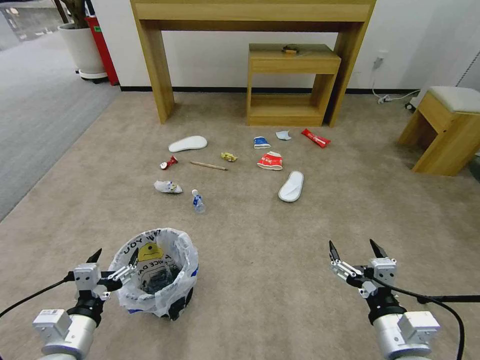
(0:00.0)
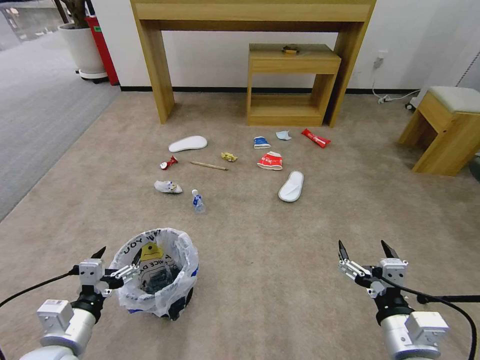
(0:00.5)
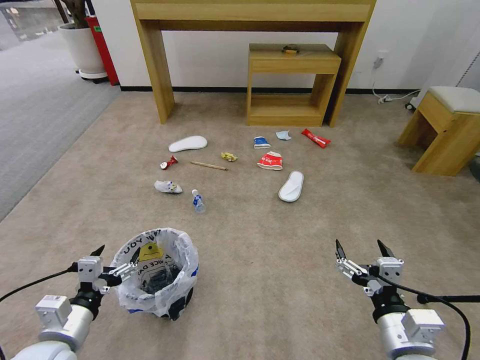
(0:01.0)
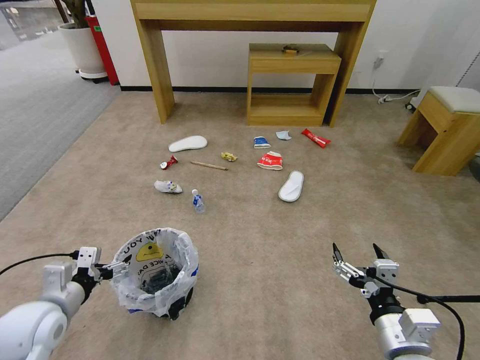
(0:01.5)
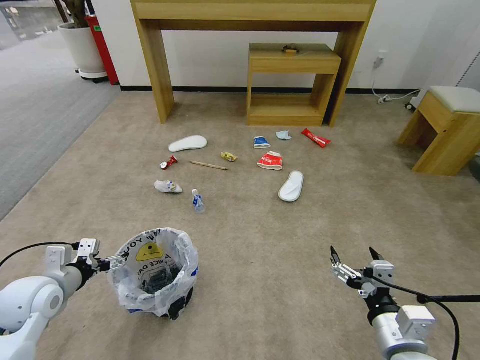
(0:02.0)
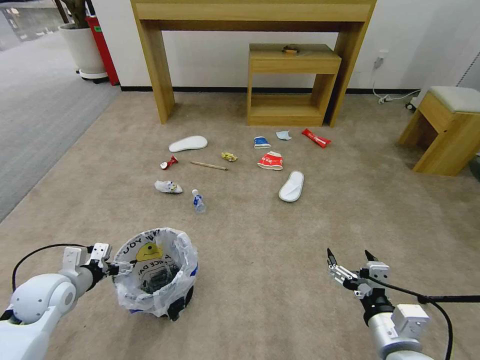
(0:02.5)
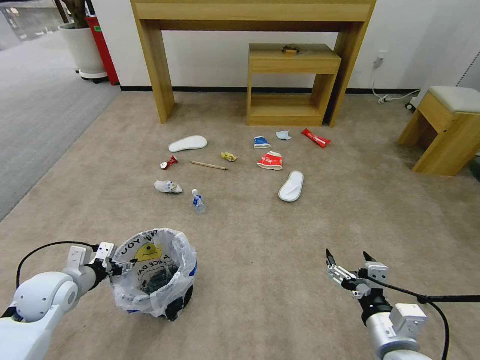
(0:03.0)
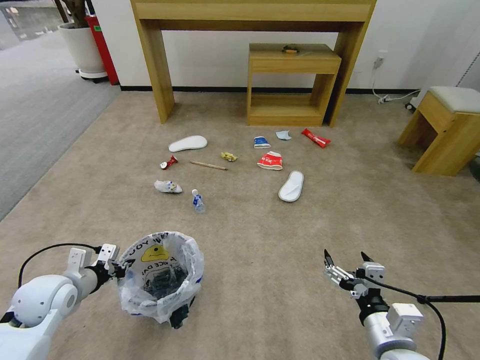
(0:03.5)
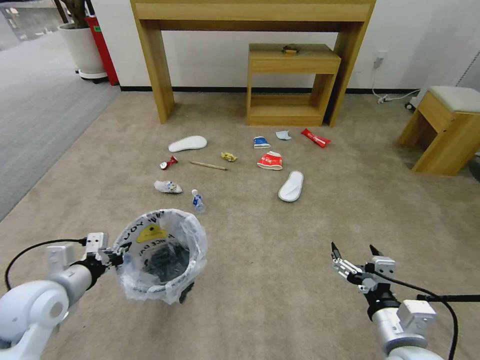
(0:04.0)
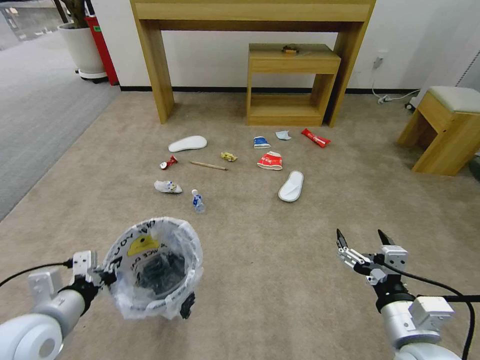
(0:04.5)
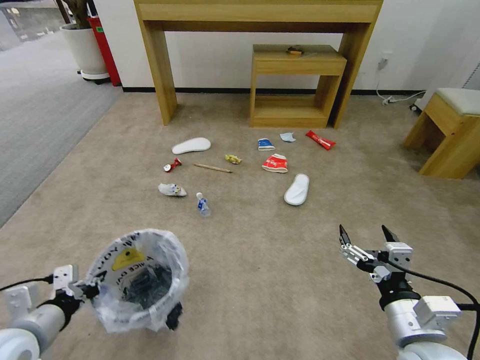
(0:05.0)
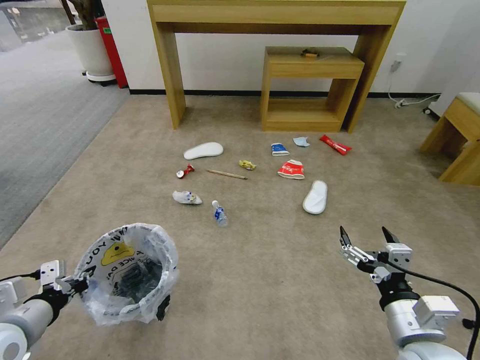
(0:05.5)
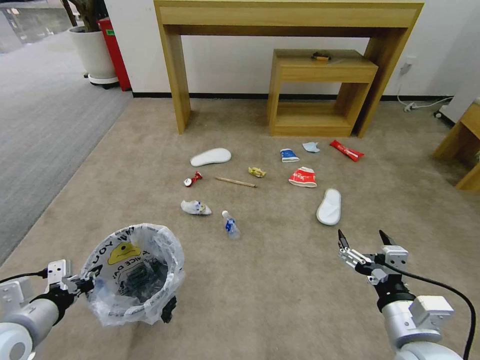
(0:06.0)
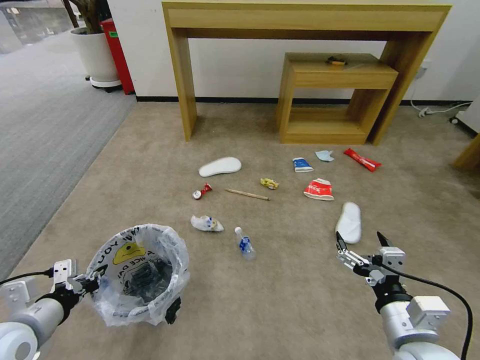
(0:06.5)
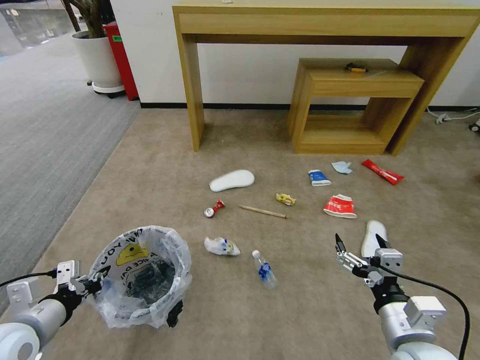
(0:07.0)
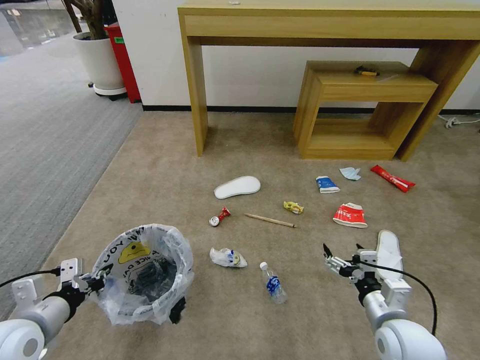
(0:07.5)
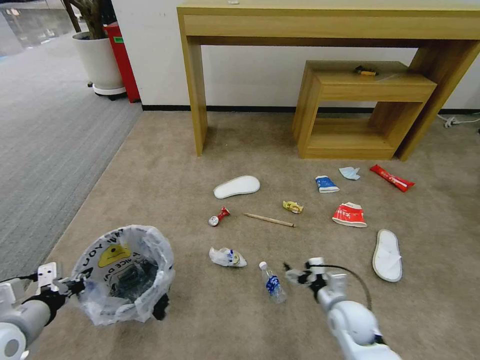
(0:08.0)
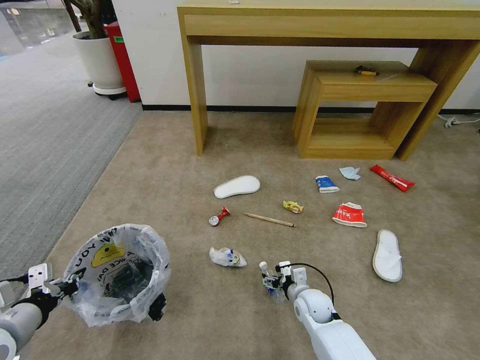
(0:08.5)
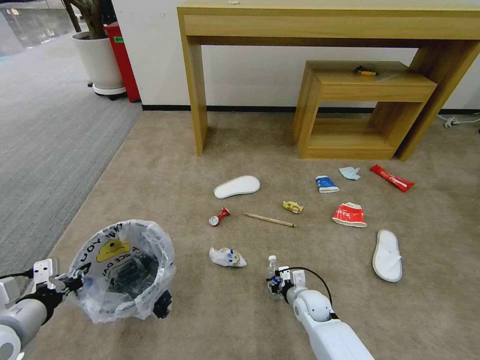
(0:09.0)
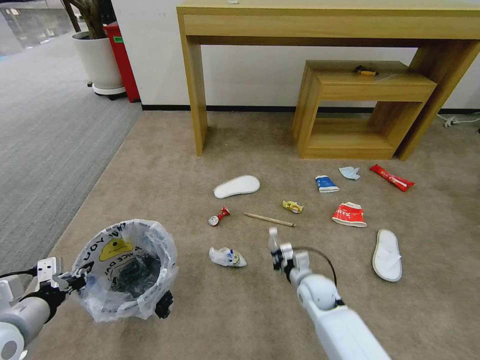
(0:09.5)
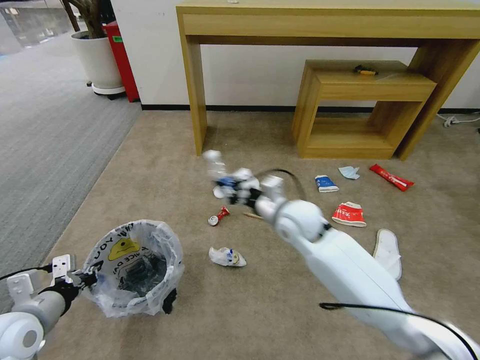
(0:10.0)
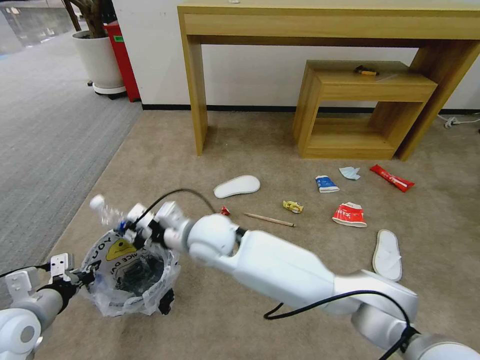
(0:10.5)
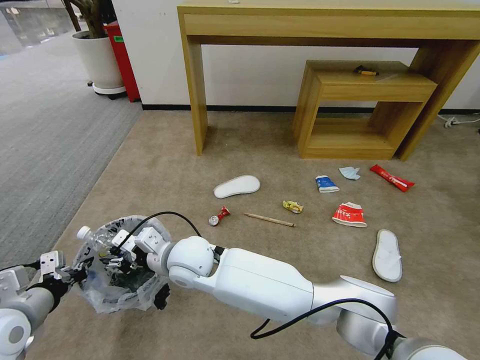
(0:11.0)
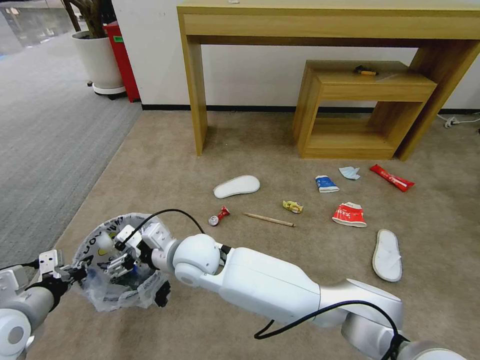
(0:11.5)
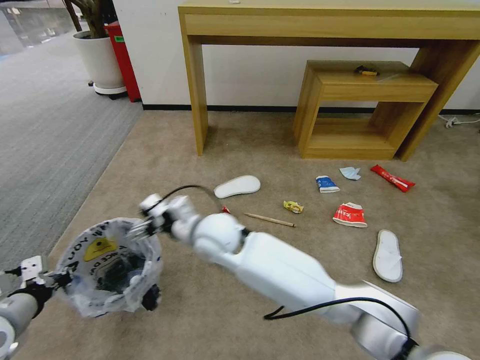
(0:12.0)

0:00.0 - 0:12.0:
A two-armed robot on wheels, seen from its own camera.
Task of the whole recording: Pick up the trash bin and place the garbage on the floor into it.
0:02.0 - 0:04.0: The left gripper moves some 5 cm, and closes up.
0:04.0 - 0:06.0: The left gripper heads backward, covering some 5 cm.
0:06.0 - 0:08.0: The right gripper heads downward and forward, covering about 20 cm.
0:08.0 - 0:10.0: The right gripper is displaced upward, forward and to the left by some 30 cm, and closes up.
0:10.0 - 0:12.0: The right gripper heads to the left, covering some 15 cm, and opens.

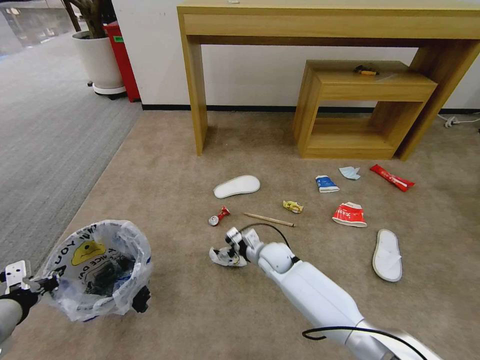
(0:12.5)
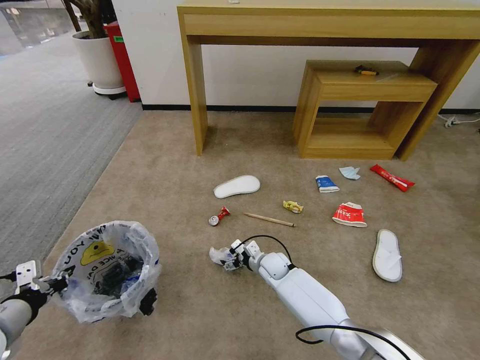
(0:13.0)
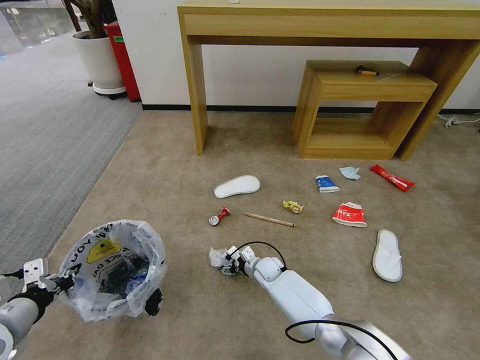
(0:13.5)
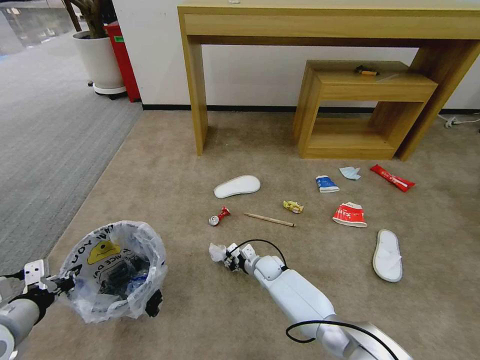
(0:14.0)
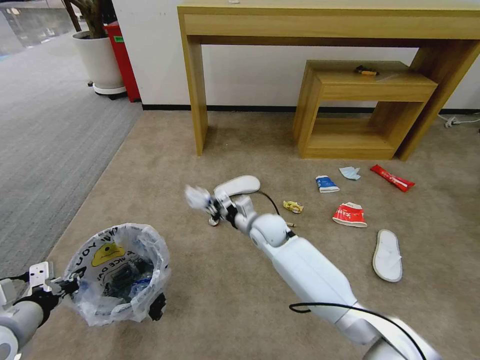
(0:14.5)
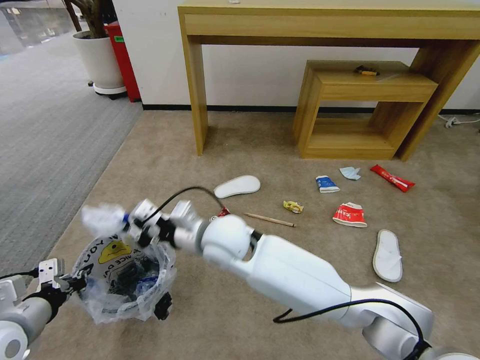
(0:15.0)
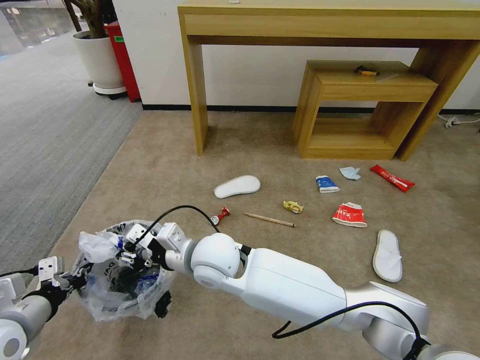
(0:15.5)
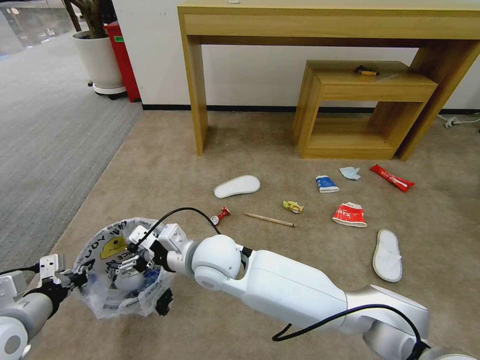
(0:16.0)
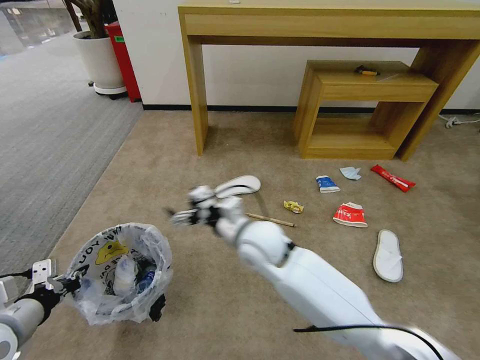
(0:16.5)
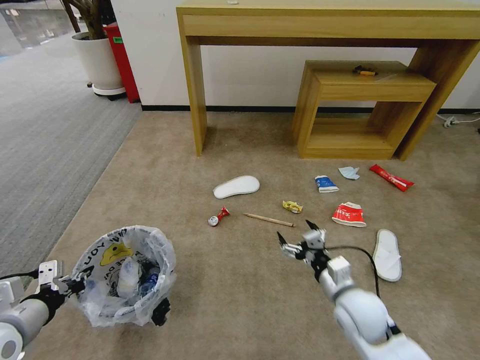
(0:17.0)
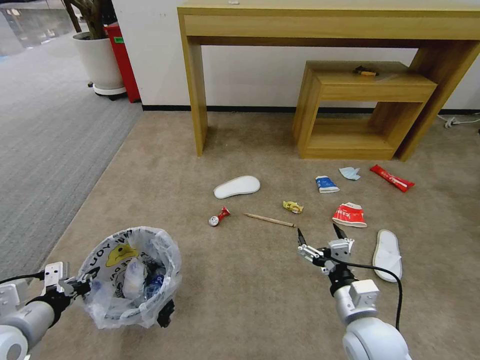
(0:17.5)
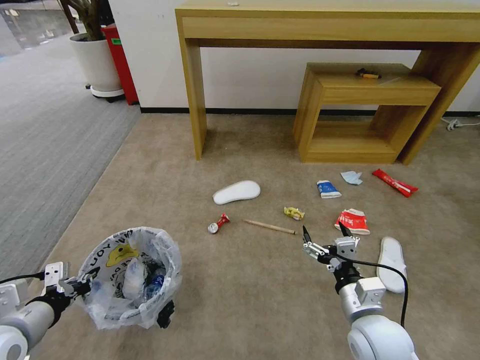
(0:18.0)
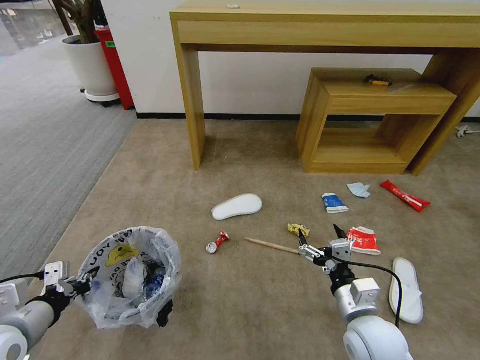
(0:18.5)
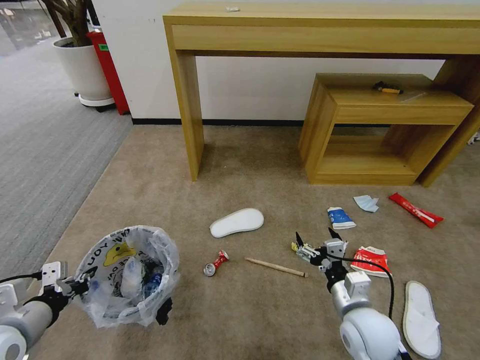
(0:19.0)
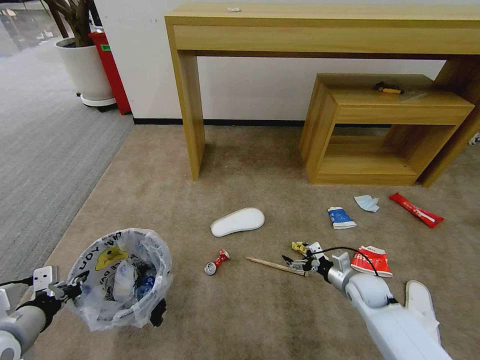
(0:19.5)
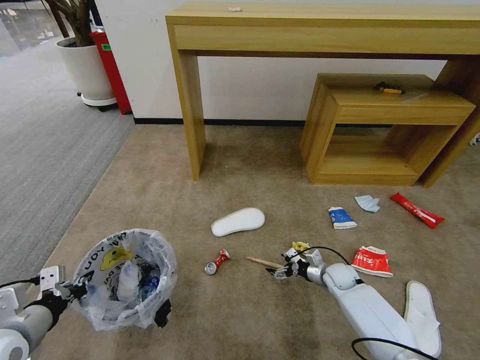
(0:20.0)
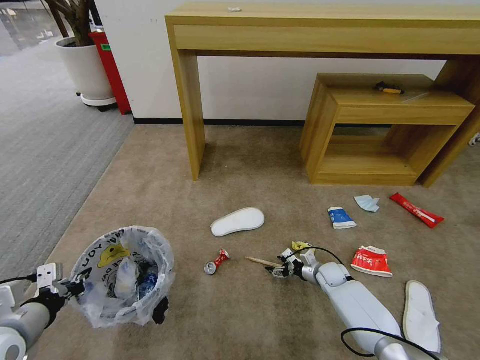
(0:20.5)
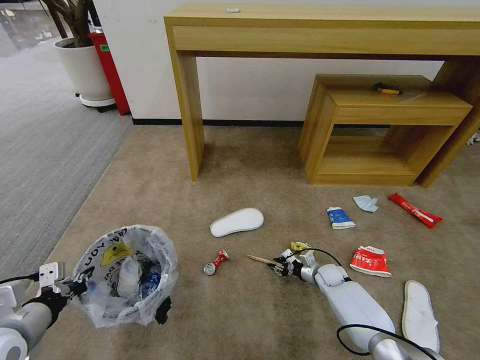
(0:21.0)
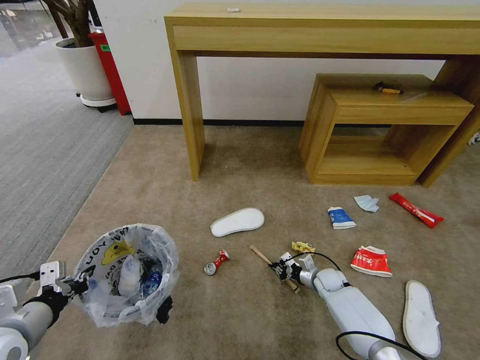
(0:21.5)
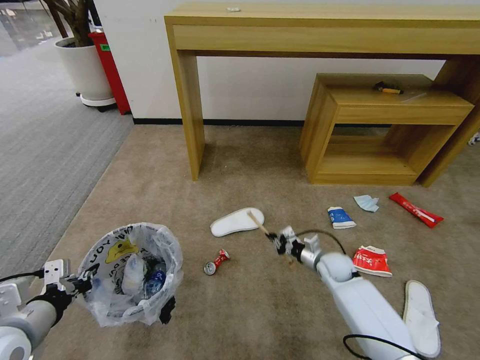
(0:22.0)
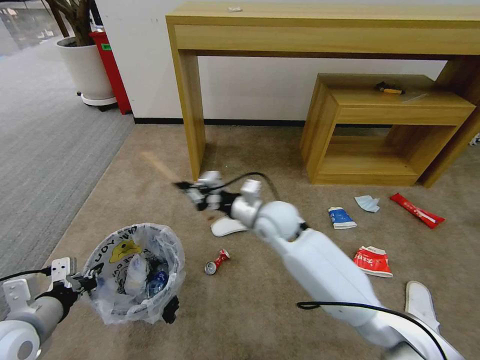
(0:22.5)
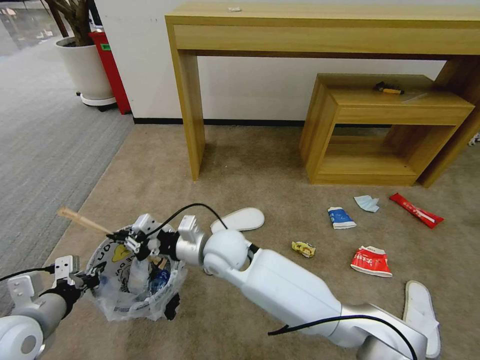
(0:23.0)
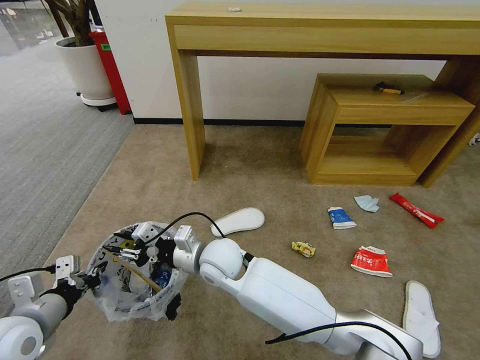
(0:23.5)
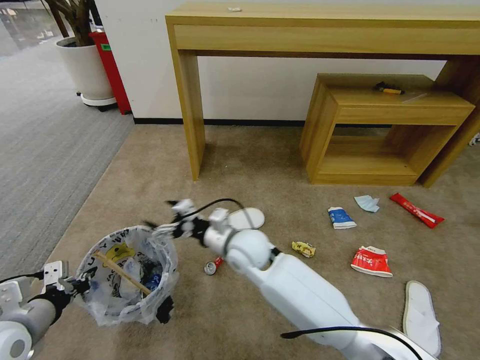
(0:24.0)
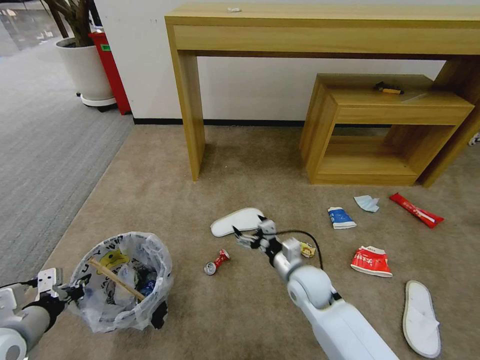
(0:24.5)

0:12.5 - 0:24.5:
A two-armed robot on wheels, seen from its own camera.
Task of the whole recording: Pick up the trash bin and place the garbage on the floor into it.
0:12.5 - 0:14.5: The right gripper goes roughly 10 cm upward, and closes its fingers.
0:14.5 - 0:16.5: The right gripper moves backward and upward, roughly 15 cm, and opens.
0:16.5 - 0:18.5: The right gripper moves to the right, backward and downward, about 30 cm.
0:18.5 - 0:20.5: The right gripper heads forward and downward, covering roughly 30 cm.
0:20.5 - 0:22.5: The right gripper goes approximately 35 cm upward and to the left, and closes.
0:22.5 - 0:24.5: The right gripper goes some 15 cm downward and backward, reaches roughly 15 cm to the left, then returns, and opens up.

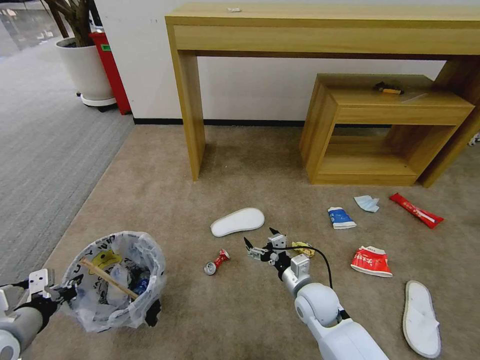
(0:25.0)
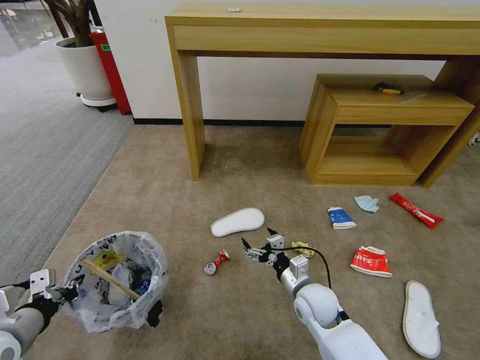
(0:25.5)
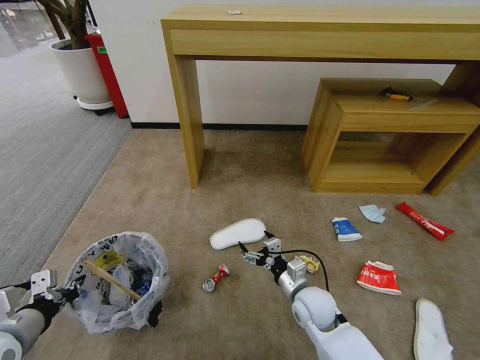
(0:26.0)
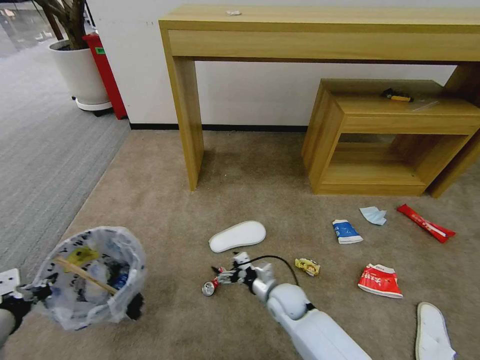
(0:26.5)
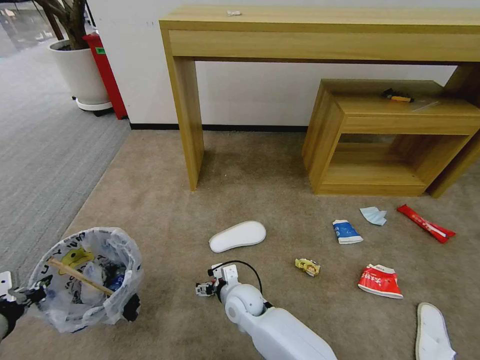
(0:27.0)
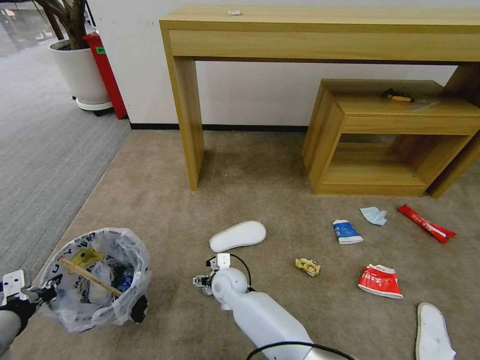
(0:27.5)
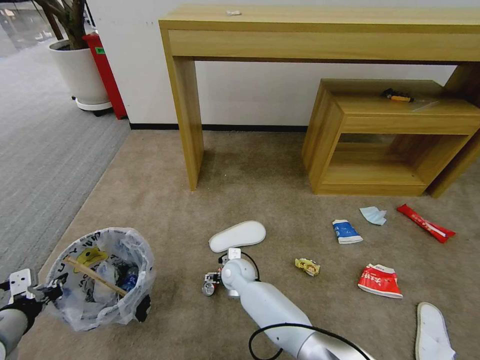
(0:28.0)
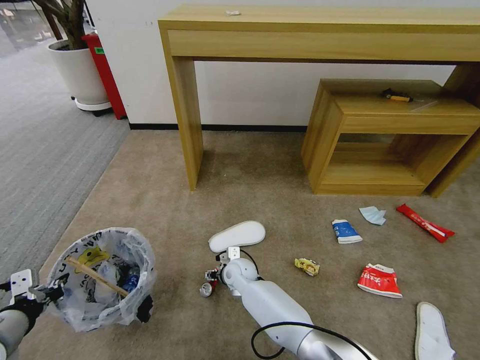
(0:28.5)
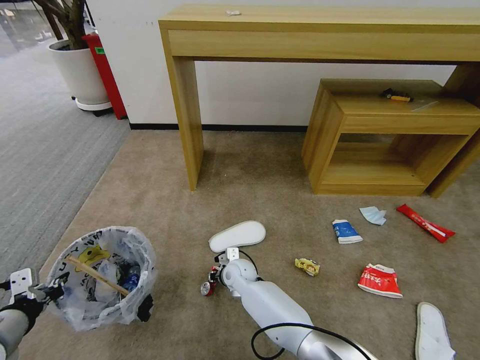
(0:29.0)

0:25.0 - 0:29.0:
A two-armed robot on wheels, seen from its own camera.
Task of the whole recording: Pick up the trash bin and place the garbage on the floor into it.
0:25.0 - 0:27.0: The right gripper travels to the left by roughly 15 cm.
0:27.0 - 0:29.0: The right gripper shifts about 10 cm forward, and closes.
